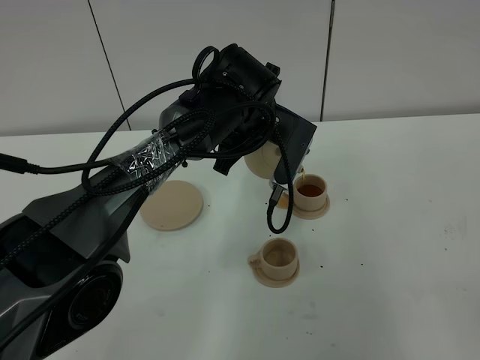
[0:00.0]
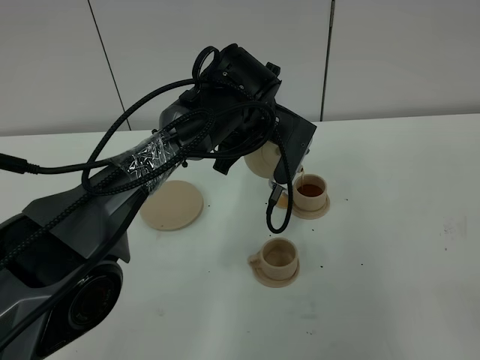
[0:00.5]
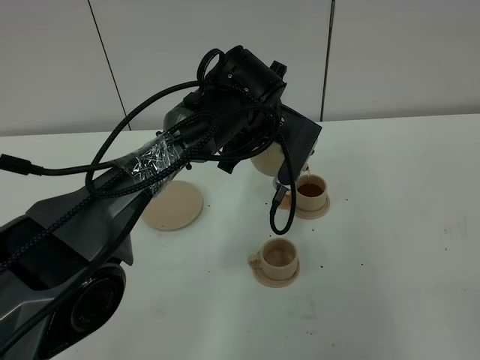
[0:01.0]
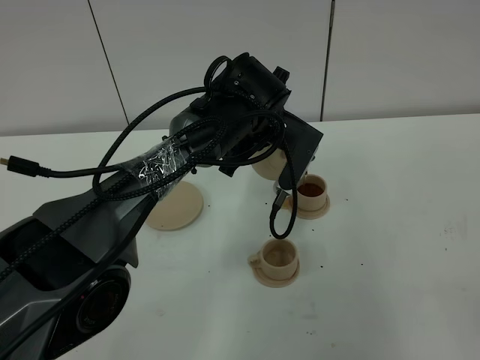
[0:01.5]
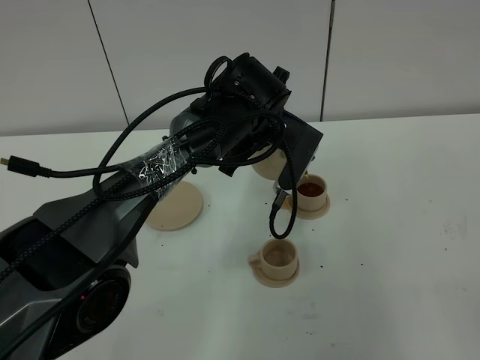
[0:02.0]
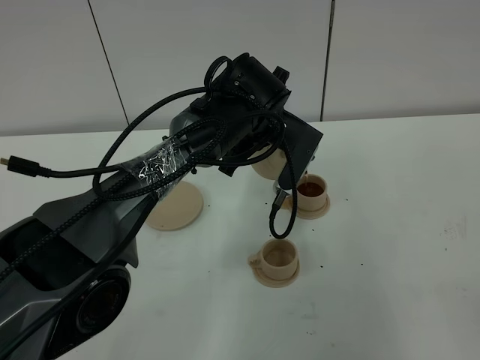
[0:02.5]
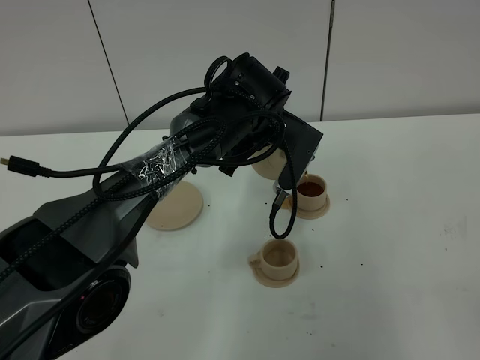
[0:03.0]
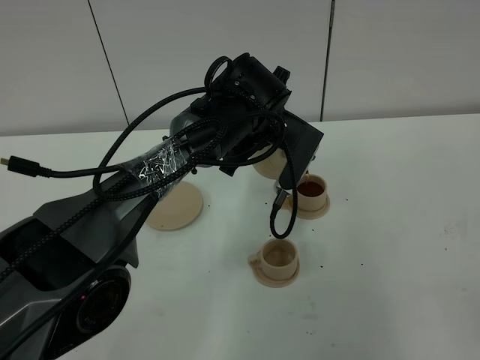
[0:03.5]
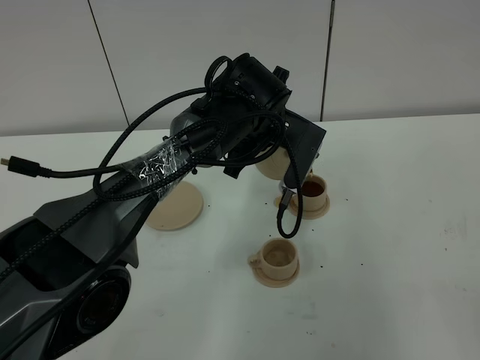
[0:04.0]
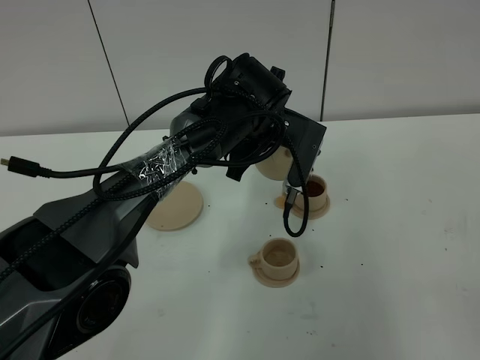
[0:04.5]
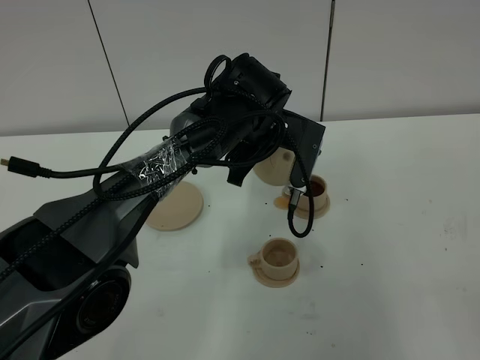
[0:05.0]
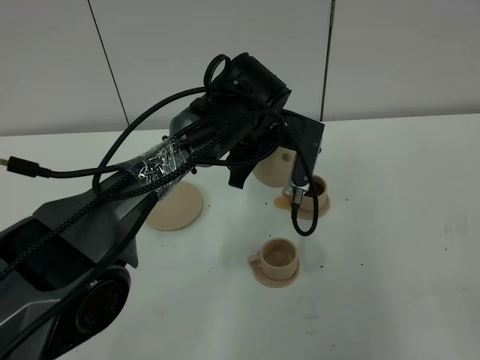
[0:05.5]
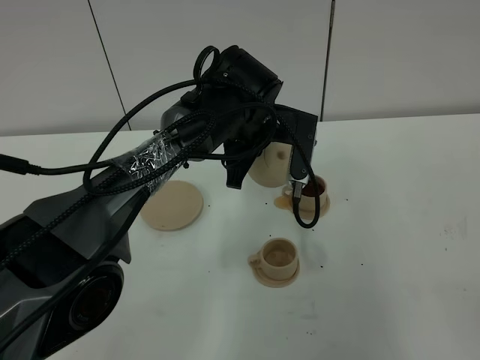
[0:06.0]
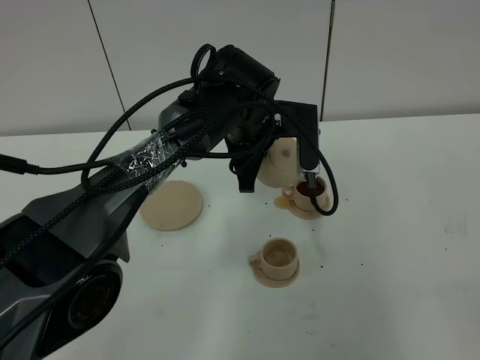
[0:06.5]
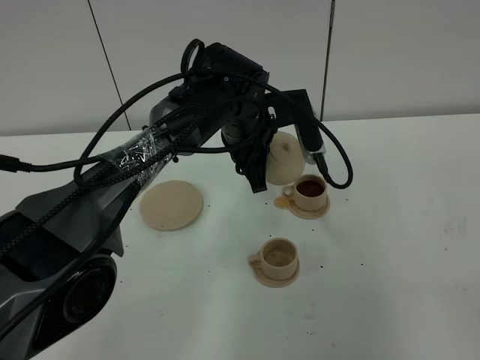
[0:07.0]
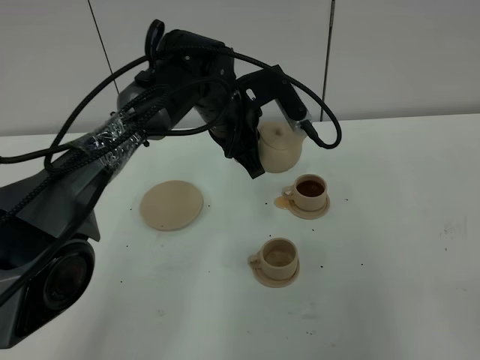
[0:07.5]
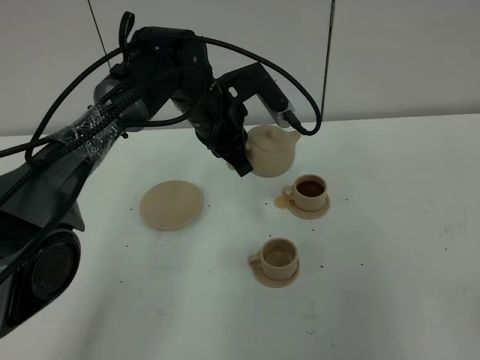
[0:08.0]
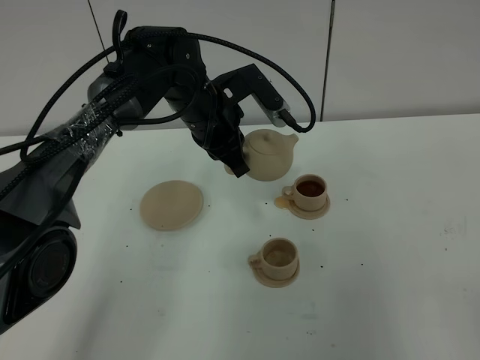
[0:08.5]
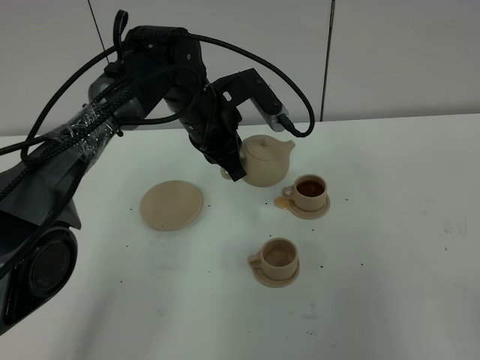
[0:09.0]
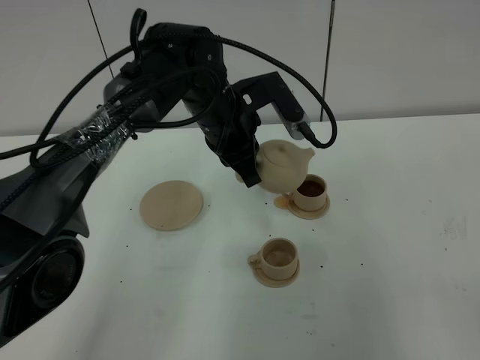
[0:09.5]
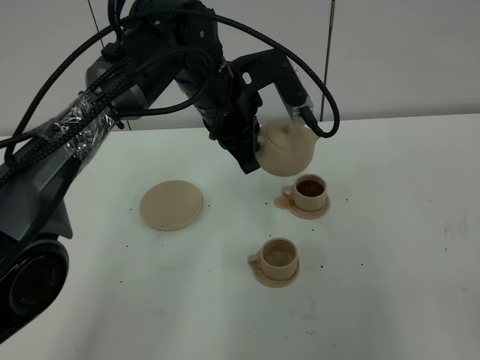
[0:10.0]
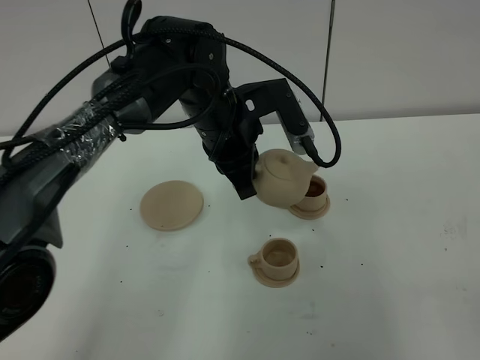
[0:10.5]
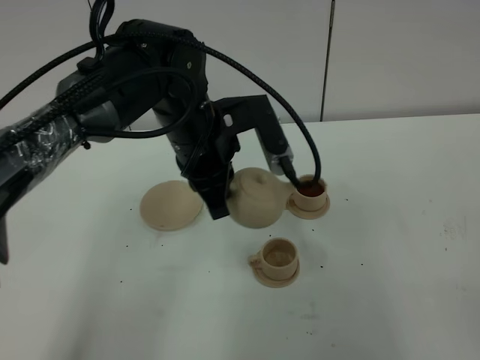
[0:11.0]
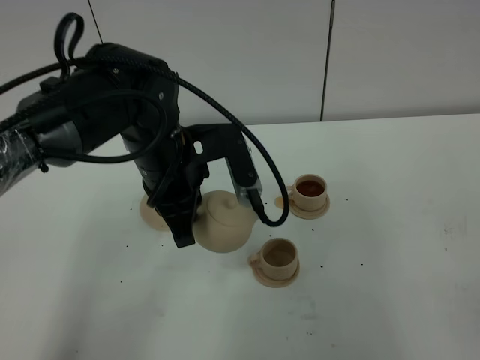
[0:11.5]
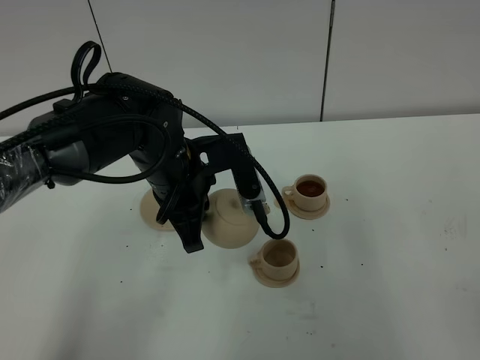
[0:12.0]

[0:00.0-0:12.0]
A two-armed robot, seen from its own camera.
Task of the whole recording: grasp the brown teapot and pour the tea into the two brown teacups one by one, put the brown teapot back in its original place.
0:00.0 to 0:04.0: Both grippers stay about where they are.
0:04.0 to 0:06.0: There are only small adjustments of the grippers.
0:06.0 to 0:08.0: The left gripper heads to the left, covering approximately 5 cm.
0:08.0 to 0:10.0: The left gripper moves roughly 5 cm.
0:10.0 to 0:12.0: The left gripper is displaced backward and to the left by approximately 10 cm.

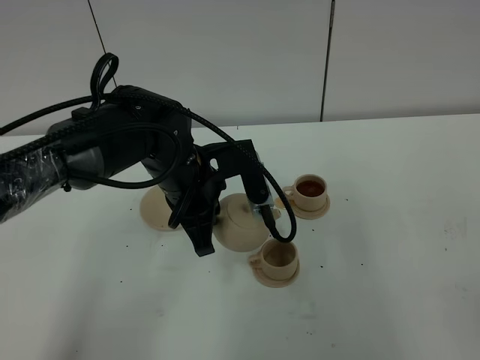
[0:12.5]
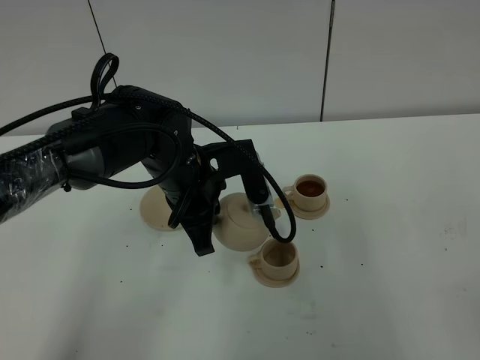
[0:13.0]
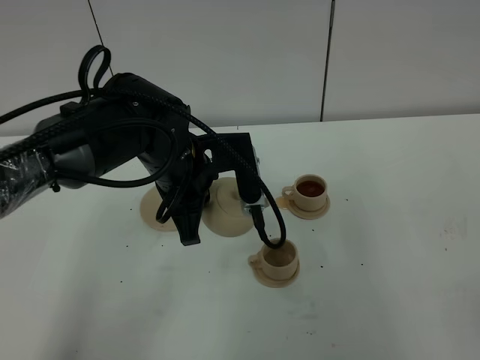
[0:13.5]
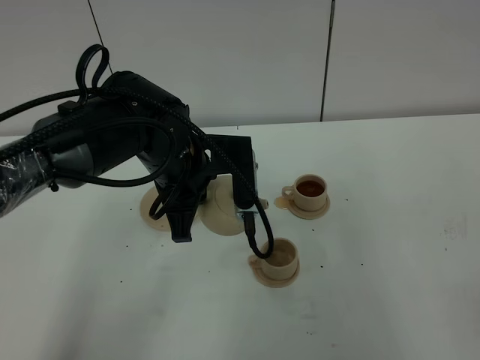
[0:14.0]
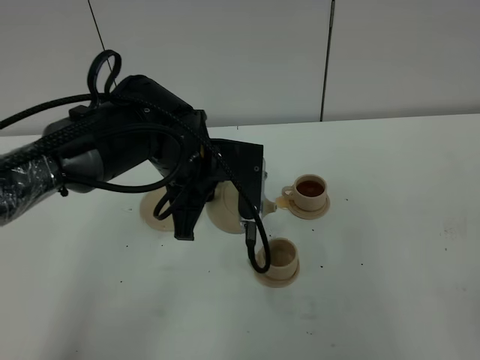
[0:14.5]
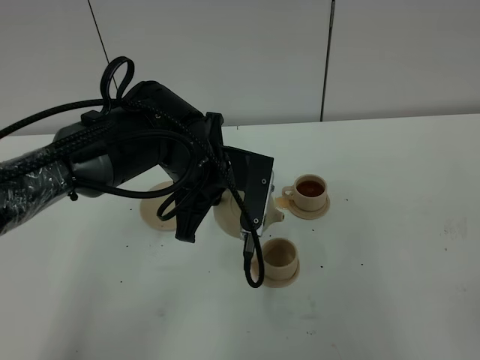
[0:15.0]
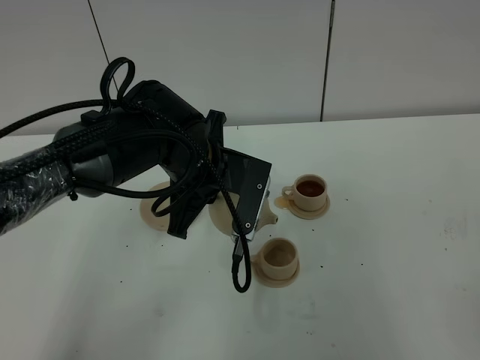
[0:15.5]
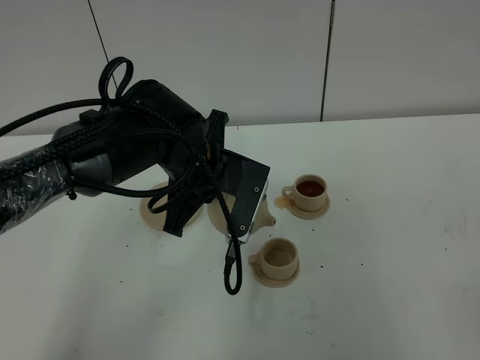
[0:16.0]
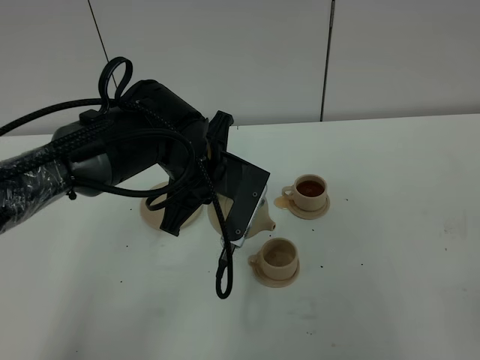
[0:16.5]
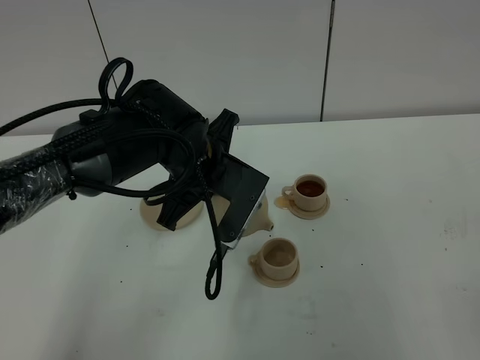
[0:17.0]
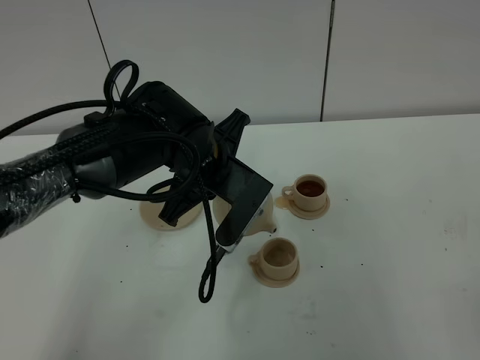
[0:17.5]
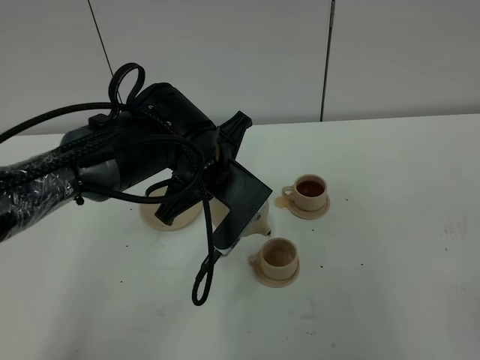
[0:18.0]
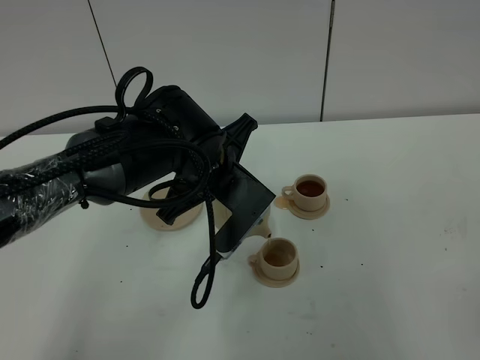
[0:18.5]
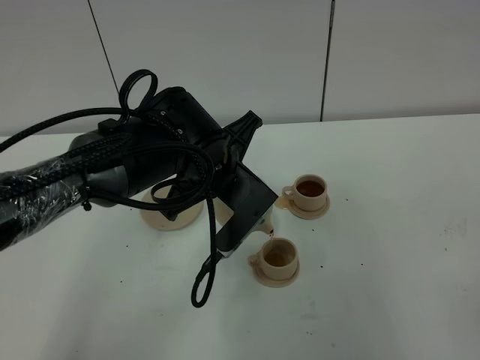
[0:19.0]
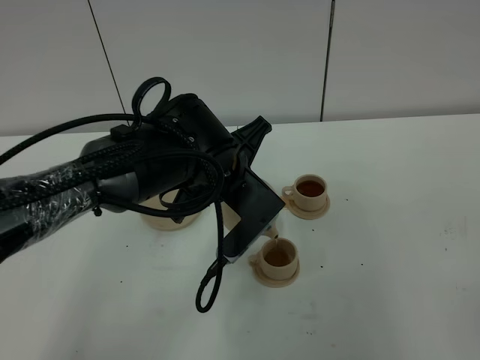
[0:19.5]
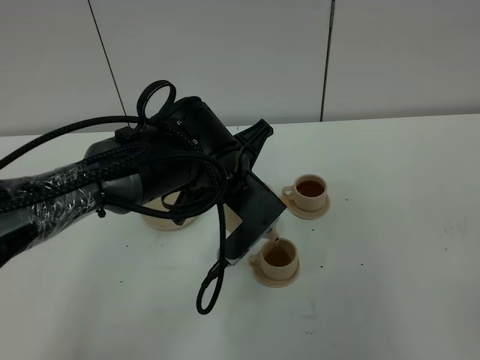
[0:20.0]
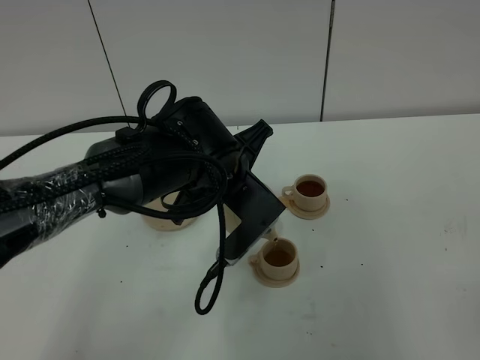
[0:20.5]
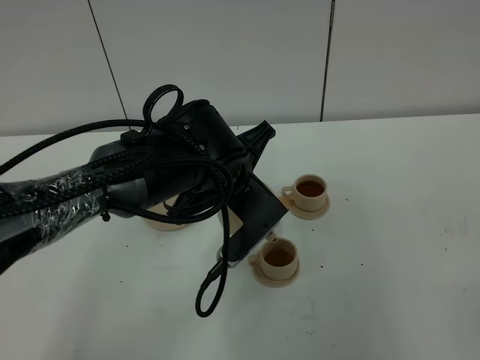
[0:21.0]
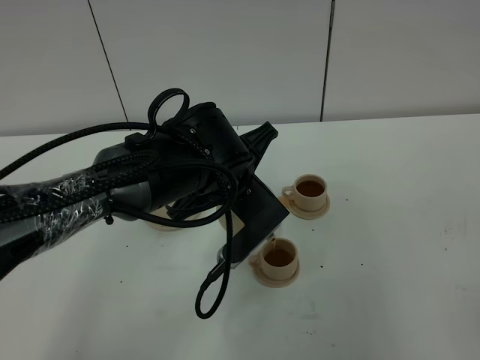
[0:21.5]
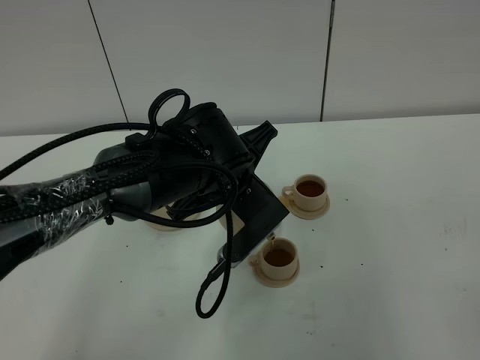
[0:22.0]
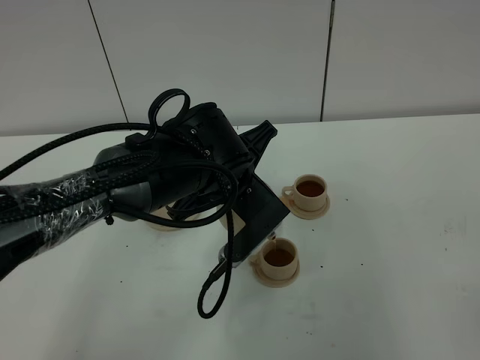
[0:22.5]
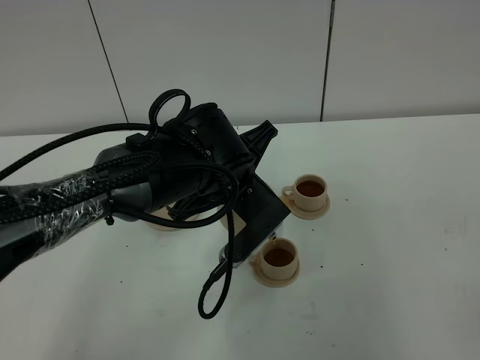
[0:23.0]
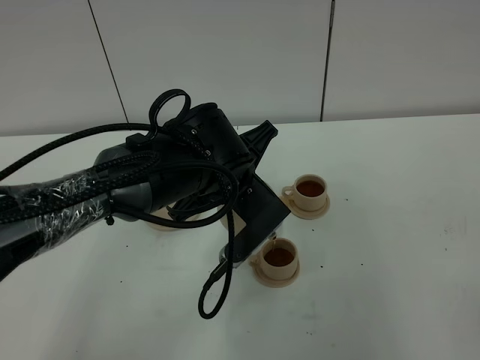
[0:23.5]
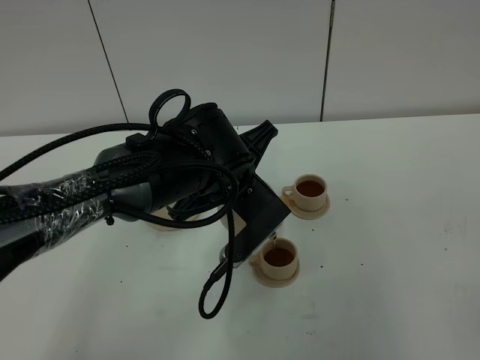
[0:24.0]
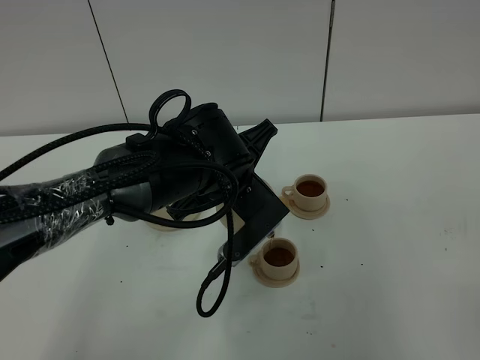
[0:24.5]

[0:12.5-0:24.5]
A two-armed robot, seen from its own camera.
Task of the whole recording: grasp the brown teapot and pour the tea into the two brown teacups one by one, put the brown teapot back in its original place.
0:16.5 to 0:18.5: There are only small adjustments of the grippers.
0:18.5 to 0:20.5: The grippers stay close to where they were, moving slightly.
0:20.5 to 0:24.5: Both grippers stay put.

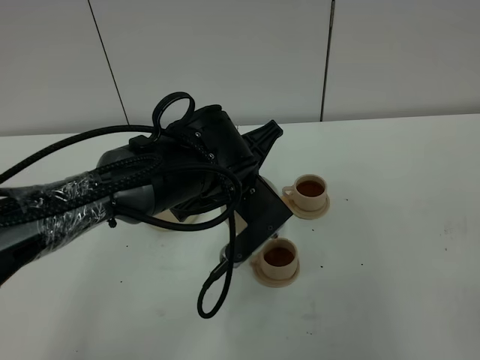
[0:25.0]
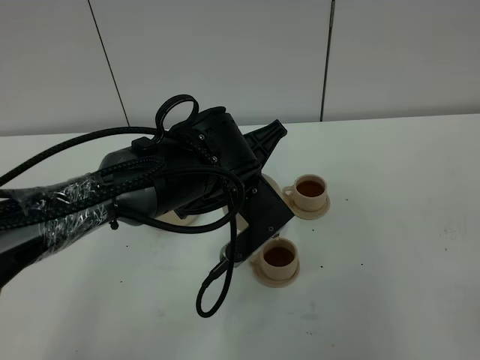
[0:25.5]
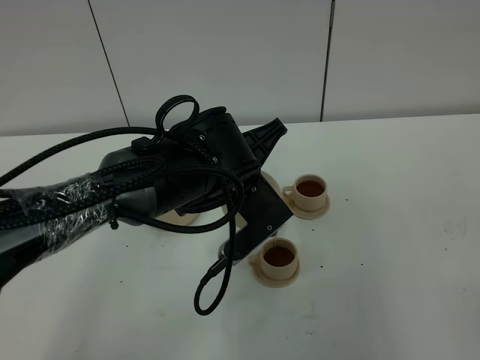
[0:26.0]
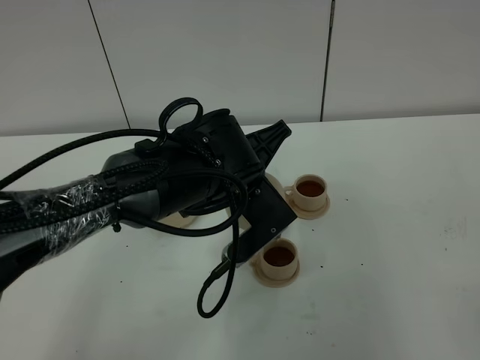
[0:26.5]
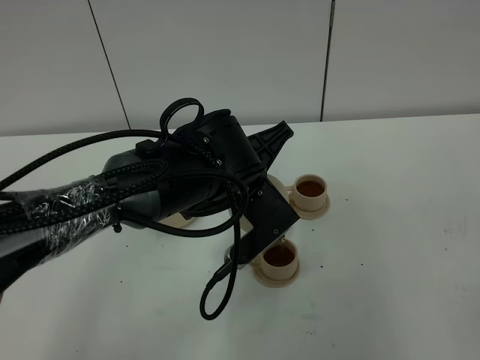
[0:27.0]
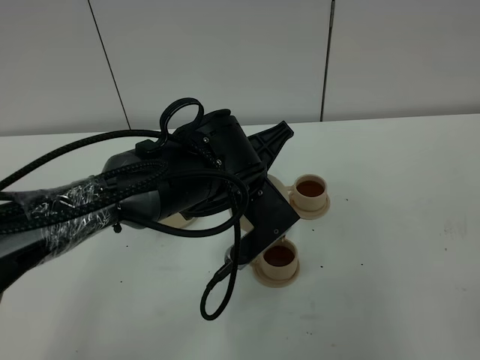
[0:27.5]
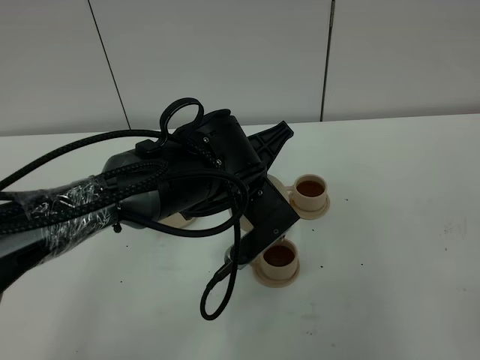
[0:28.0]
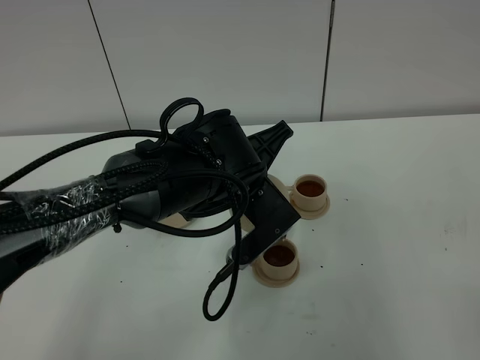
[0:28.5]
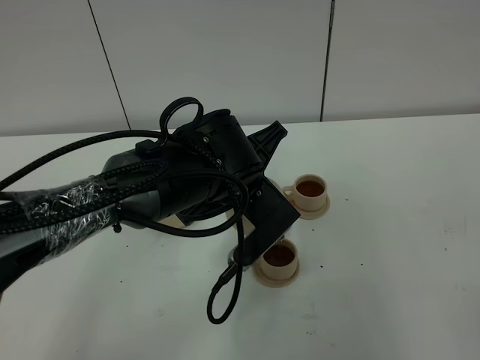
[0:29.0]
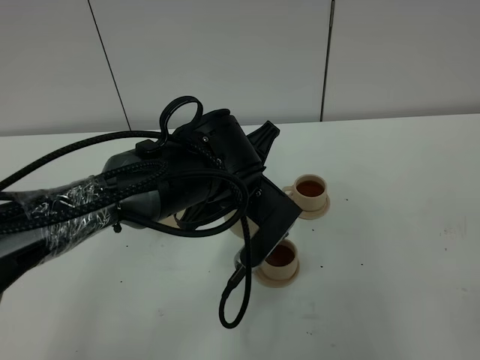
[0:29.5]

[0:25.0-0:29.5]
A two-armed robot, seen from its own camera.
Task of the whole recording: grasp the brown teapot and pour the tea into the two brown teacups one by one, put the brown teapot back in its original place.
0:25.0 to 0:27.0: Both grippers stay about where they are.
0:27.0 to 0:29.5: There are only small adjustments of the grippers.
